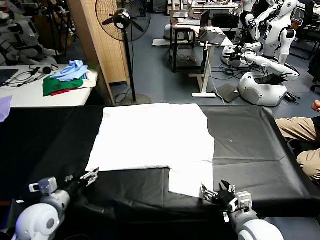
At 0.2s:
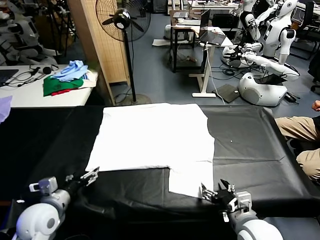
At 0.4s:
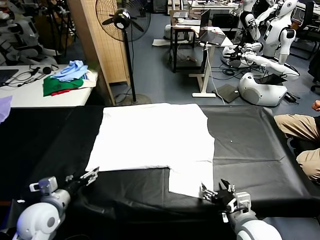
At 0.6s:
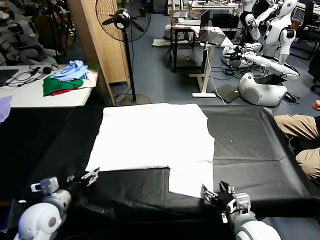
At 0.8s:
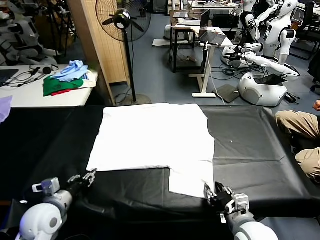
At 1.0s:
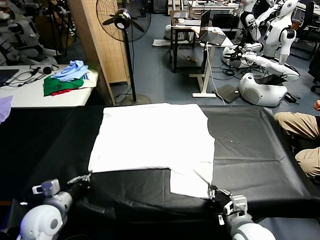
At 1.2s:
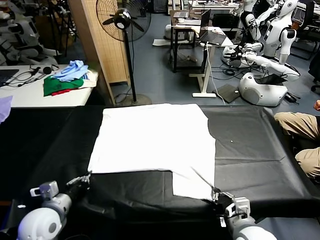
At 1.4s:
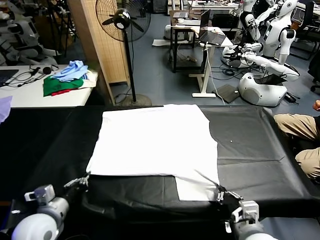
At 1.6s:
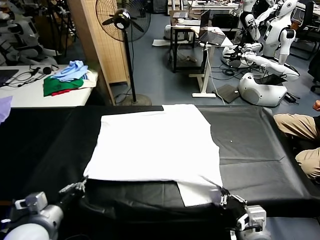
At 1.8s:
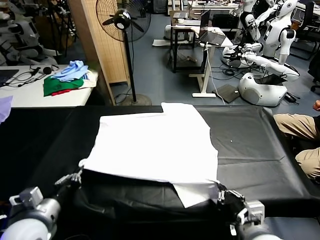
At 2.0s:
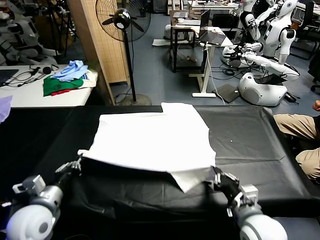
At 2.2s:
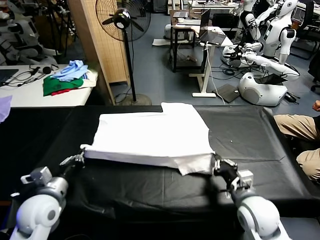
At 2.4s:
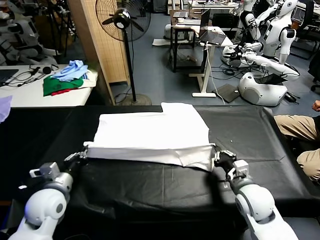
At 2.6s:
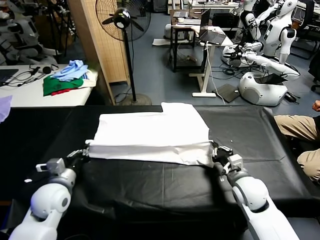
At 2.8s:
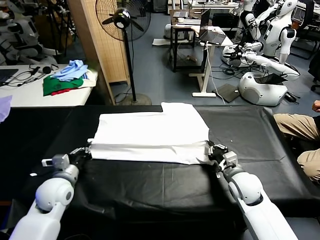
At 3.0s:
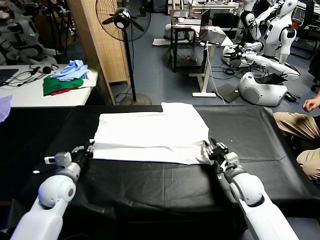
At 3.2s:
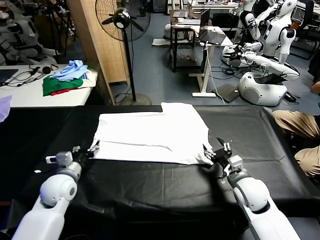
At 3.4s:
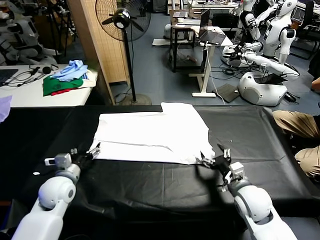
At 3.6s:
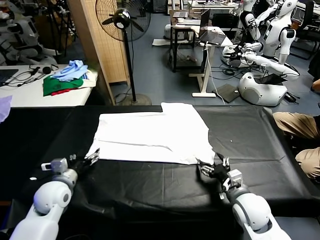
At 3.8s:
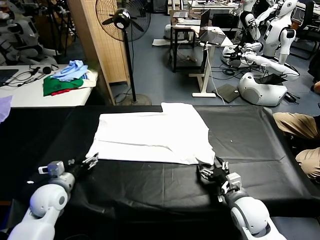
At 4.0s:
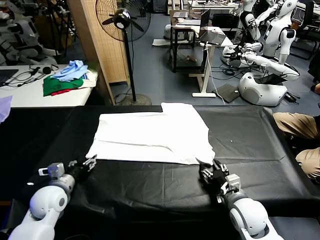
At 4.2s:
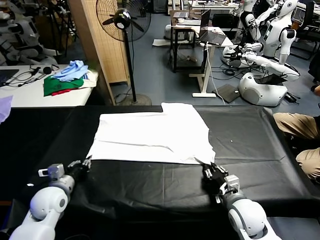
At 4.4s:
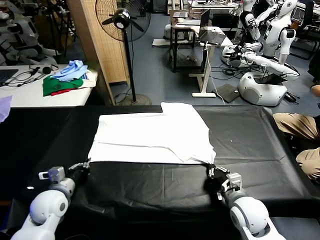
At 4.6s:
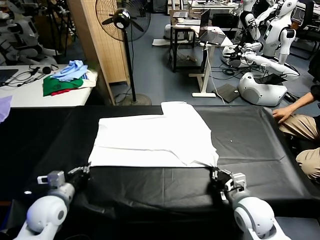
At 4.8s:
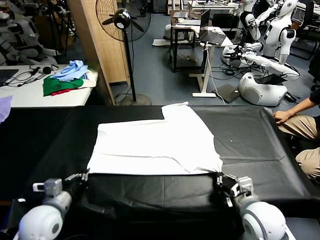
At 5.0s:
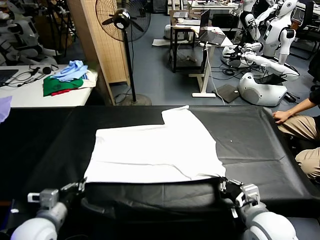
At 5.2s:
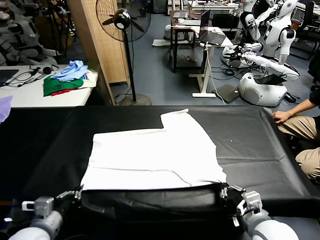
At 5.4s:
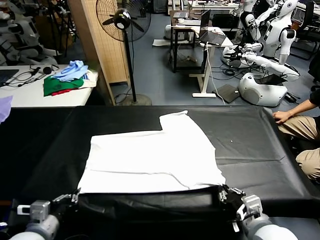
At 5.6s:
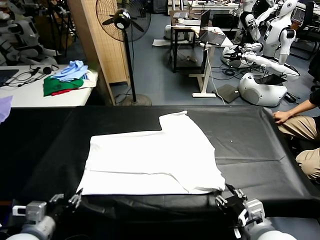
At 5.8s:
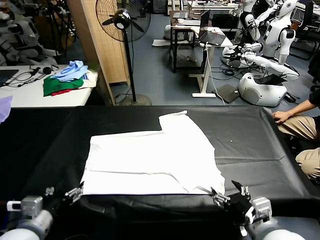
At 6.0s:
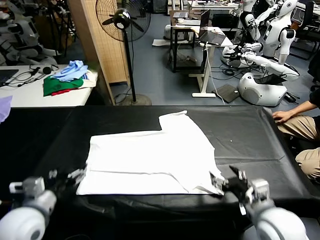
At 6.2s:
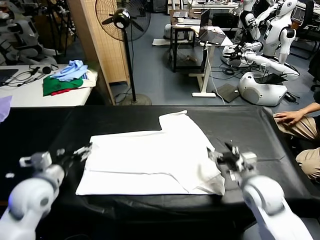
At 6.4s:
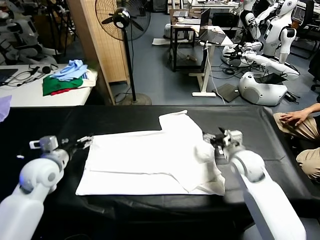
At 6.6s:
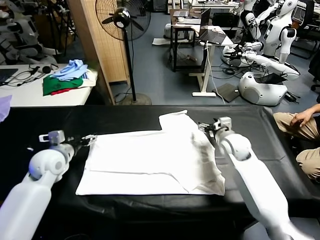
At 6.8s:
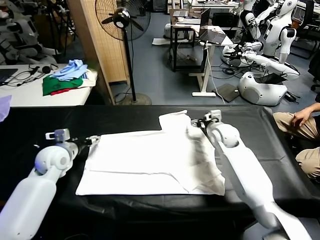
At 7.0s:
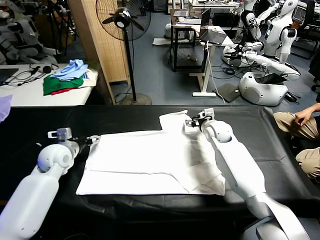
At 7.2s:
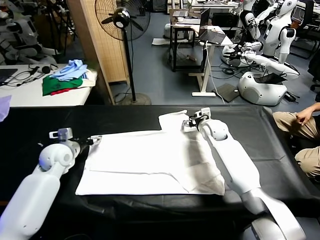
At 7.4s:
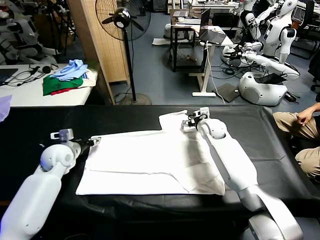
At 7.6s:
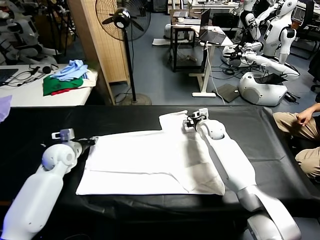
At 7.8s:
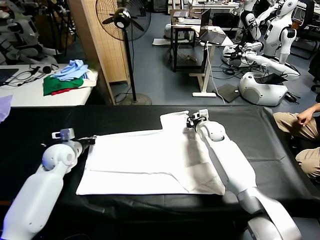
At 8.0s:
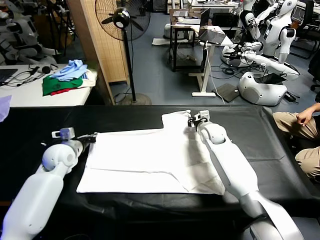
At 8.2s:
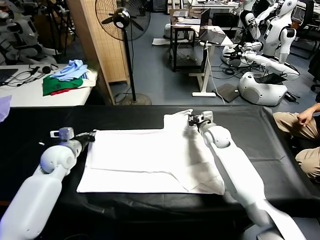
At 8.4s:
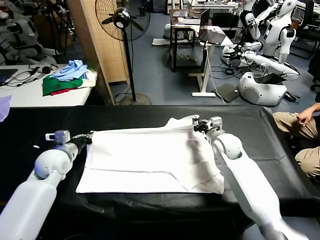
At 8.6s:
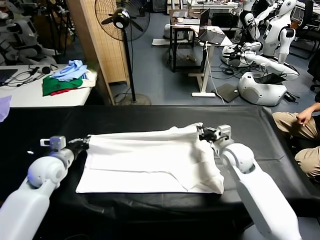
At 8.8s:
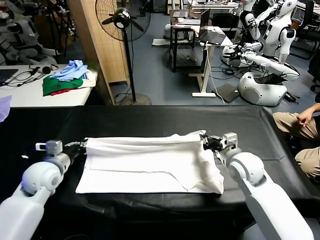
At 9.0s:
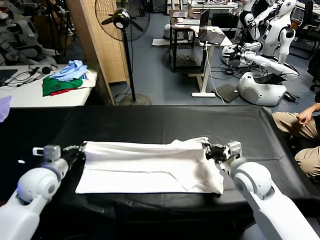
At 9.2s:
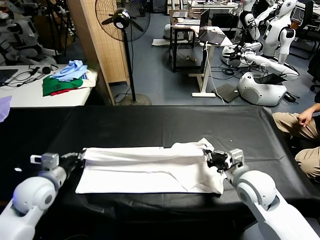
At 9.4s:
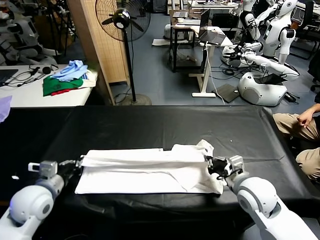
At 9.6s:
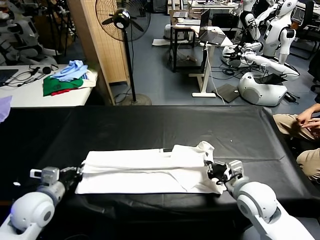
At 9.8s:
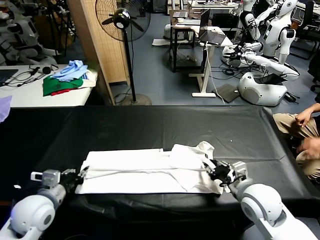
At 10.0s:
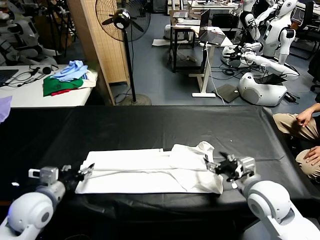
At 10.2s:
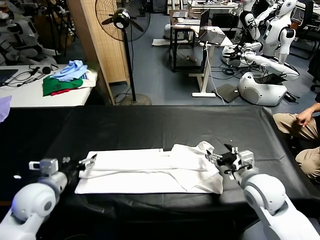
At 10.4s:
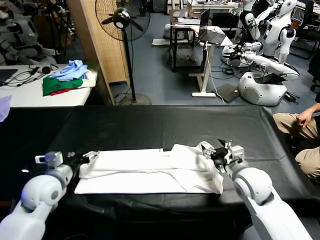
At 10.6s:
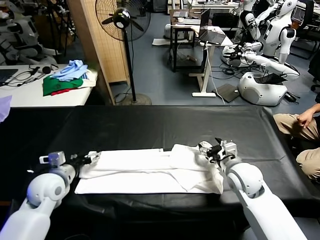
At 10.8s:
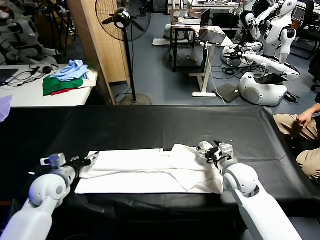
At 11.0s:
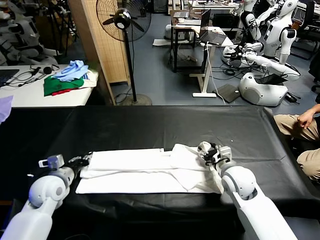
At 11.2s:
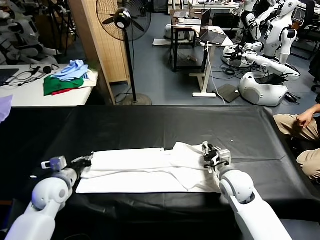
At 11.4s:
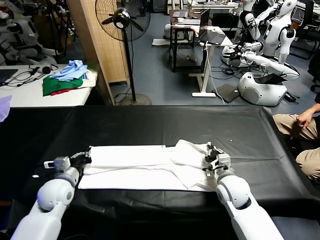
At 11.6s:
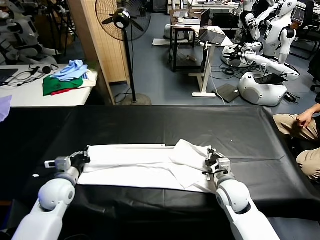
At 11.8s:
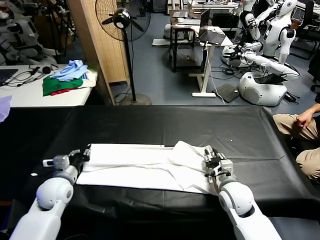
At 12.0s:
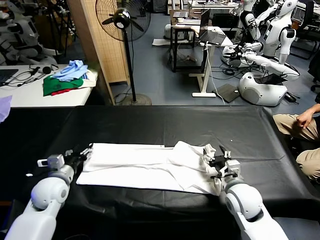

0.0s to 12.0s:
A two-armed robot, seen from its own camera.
Task of the whole recording: fold and organize the clothes.
Step, 0.0s to 1.2s: use both grippers simultaneously to clamp the lower edge of the clothing fabric.
Step, 1.4s to 3.2s: use both grippers to drag the lower edge of the fabric forward and fold it over the upper edge.
Step, 3.4s to 5.6s: Drag the clothes downward with both gripper.
Step, 5.8s to 7.8s: use both grippers simultaneously to clamp the upper edge of the clothing fabric.
Step, 8.2s to 9.8s: use both grippers to drag the upper edge of the fabric backward and fold it over the lower edge.
1.6s to 3.0s: The right gripper shifts roughly 20 cm forward and downward, and opens; the left gripper goes some 15 cm forward, and opens its fingers.
3.0s to 4.4s: The right gripper travels backward by approximately 5 cm, and closes. Meanwhile the left gripper closes up.
4.4s to 6.0s: The right gripper shifts roughly 5 cm upward, travels backward and back again, about 10 cm each way, and opens; the left gripper is displaced upward and backward by roughly 15 cm, and opens.
6.0s to 7.6s: The grippers both shift forward by approximately 25 cm. The right gripper closes up. Meanwhile the left gripper closes its fingers.
7.6s to 9.0s: The right gripper heads backward, covering roughly 25 cm, and closes up; the left gripper shifts roughly 10 cm backward.
9.0s to 10.4s: The left gripper reaches some 10 cm backward, then returns, and opens its fingers. The right gripper opens up.
10.4s to 12.0s: The left gripper moves downward, some 5 cm, and closes, then opens again. The right gripper shifts by some 5 cm, and closes and opens again.

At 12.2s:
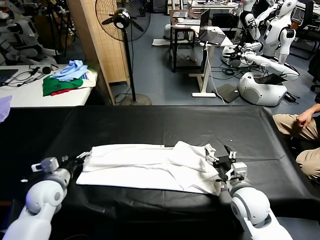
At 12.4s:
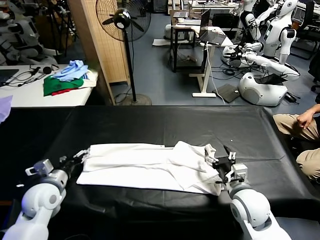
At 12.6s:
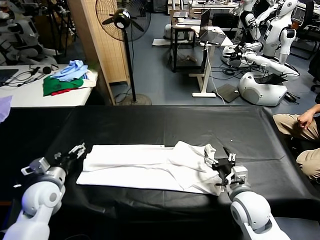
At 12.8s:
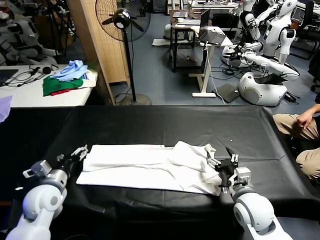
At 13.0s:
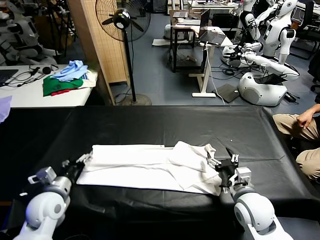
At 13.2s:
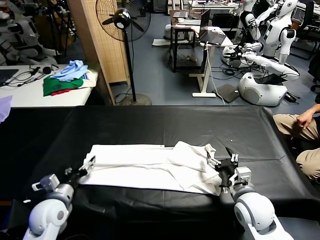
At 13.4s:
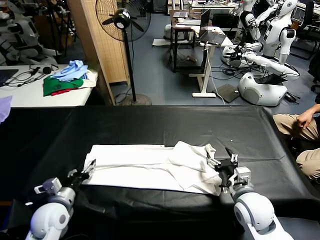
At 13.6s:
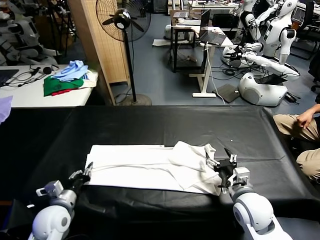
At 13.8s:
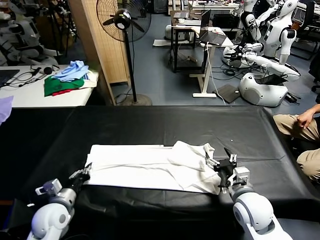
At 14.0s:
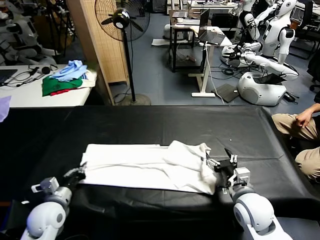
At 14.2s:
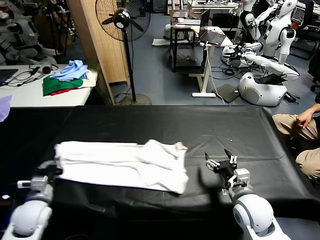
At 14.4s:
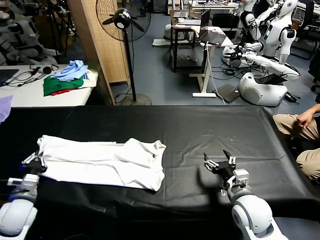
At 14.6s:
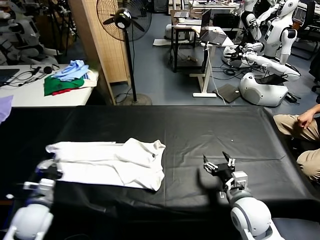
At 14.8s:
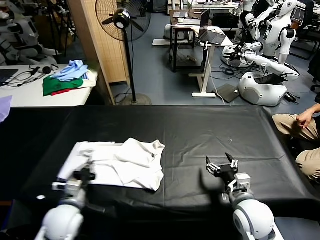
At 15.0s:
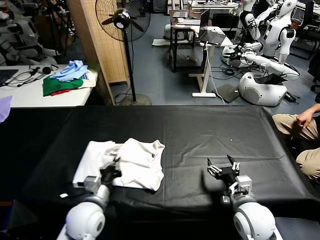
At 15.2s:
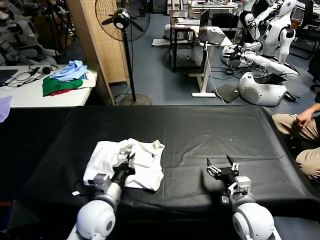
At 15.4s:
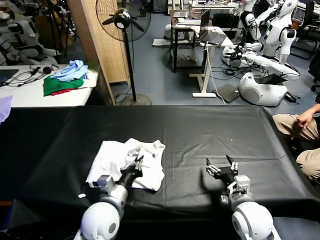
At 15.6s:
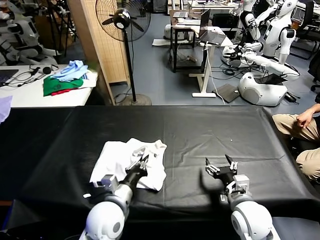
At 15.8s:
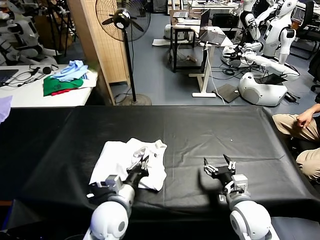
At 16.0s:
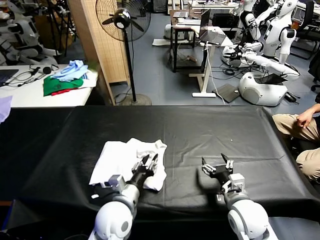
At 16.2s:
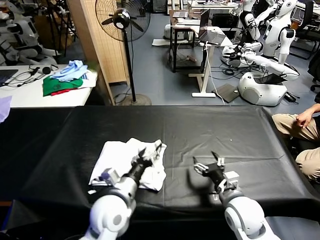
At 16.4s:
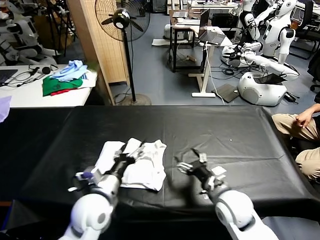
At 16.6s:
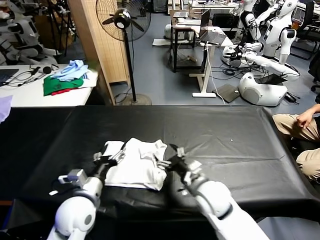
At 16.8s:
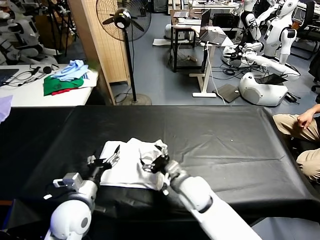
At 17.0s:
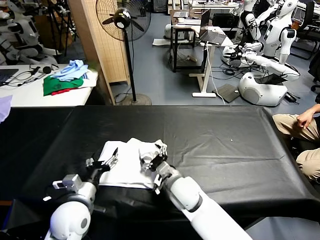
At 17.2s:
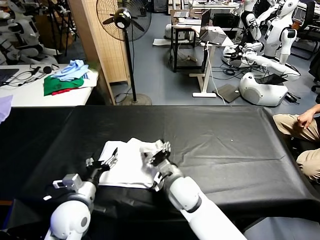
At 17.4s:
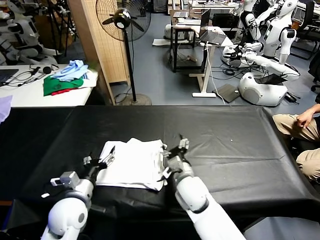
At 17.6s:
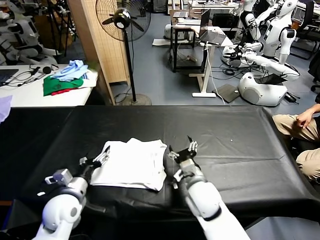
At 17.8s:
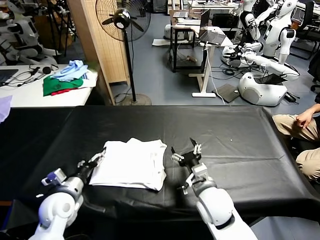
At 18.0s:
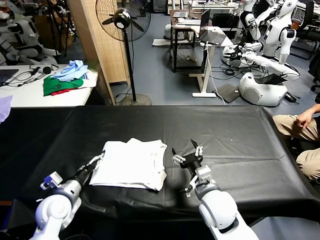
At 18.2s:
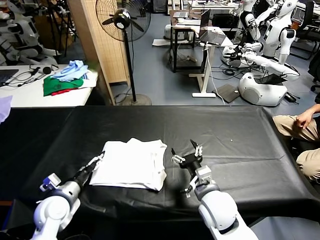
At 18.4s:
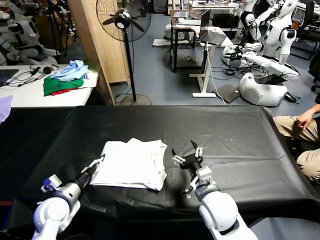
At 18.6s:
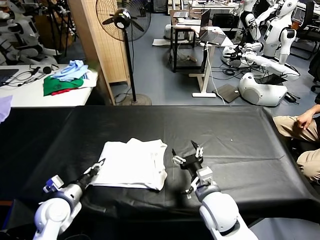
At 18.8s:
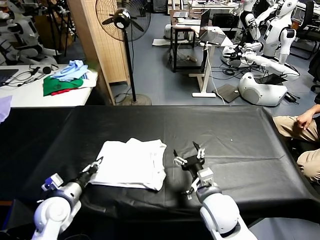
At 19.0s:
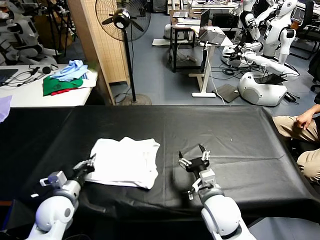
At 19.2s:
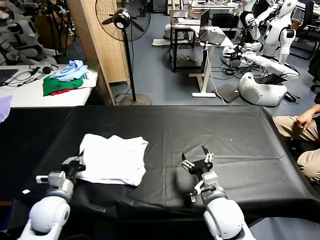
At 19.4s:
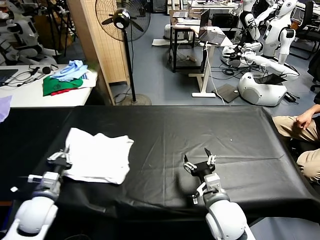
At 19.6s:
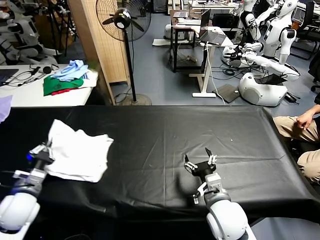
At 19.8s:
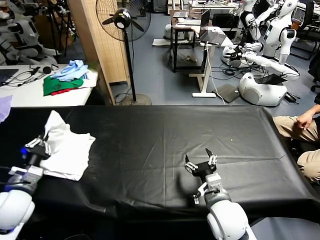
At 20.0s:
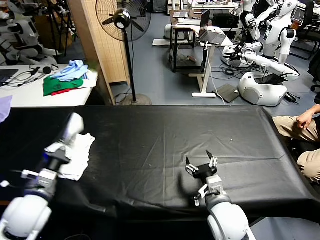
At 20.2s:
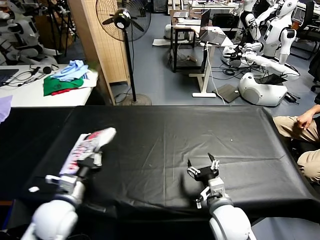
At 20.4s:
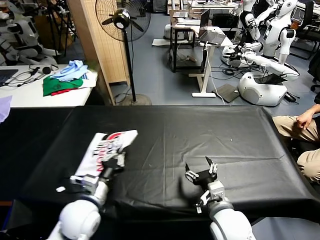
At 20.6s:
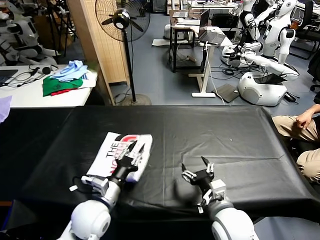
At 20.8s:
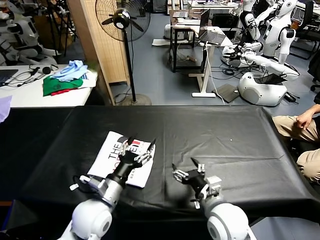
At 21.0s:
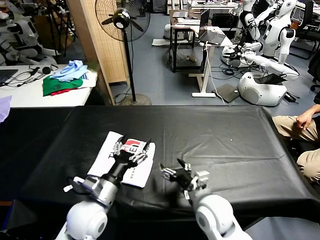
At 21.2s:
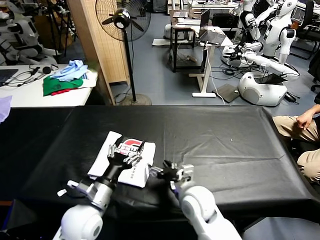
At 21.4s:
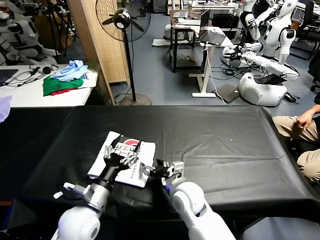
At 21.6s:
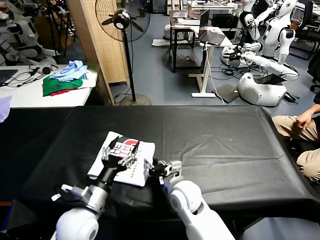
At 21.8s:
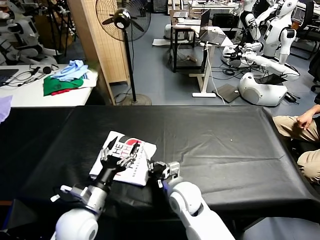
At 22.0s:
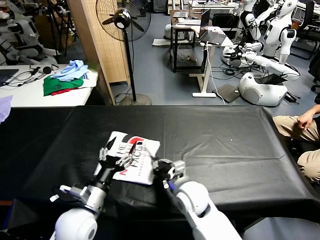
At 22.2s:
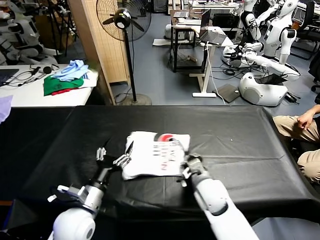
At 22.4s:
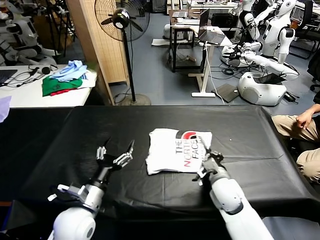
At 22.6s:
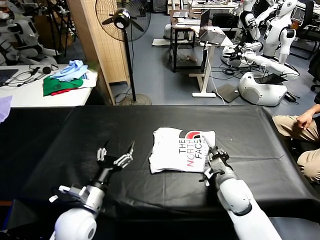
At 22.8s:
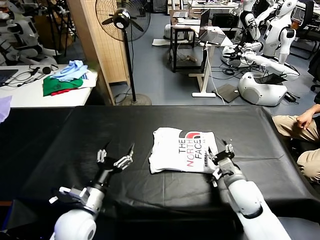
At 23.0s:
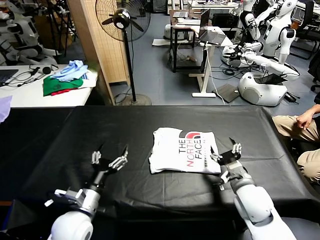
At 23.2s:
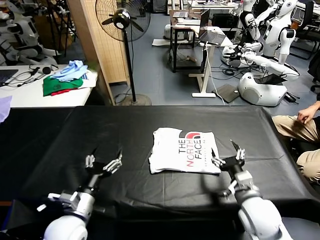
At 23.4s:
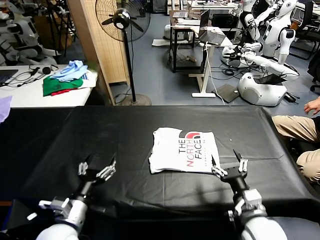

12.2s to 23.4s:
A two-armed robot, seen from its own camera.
Task of the whole recording: fold and organize the clothes.
Step, 14.0s to 16.2s: use the left gripper to drag the left edge of the fabric to the left and folds it over the right edge.
Step, 16.4s to 20.6s: Flip the folded clothes over with left gripper.
Step, 21.0s to 22.8s: Drag the clothes to the center of the table.
12.2s to 13.8s: The left gripper heads backward, covering about 5 cm, and closes up.
13.8s to 15.4s: The left gripper moves to the right, about 15 cm.
15.4s to 17.0s: The right gripper travels to the left and forward by approximately 20 cm, while the left gripper travels to the left by approximately 10 cm, and opens its fingers.
17.0s to 18.6s: The right gripper is displaced to the right and backward by approximately 10 cm; the left gripper moves to the left and downward, approximately 10 cm, and closes up.
18.6s to 20.2s: The left gripper heads upward, covering about 10 cm.
20.2s to 21.8s: The left gripper goes some 10 cm to the right, and opens up. The right gripper goes about 15 cm to the left and forward, and closes its fingers.
21.8s to 23.4s: The left gripper changes place by some 5 cm, while the right gripper travels to the right and backward by roughly 20 cm, and opens.
